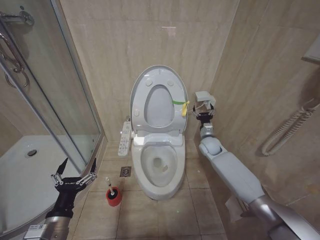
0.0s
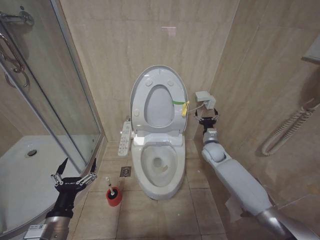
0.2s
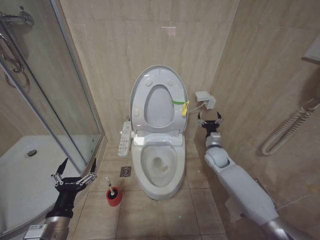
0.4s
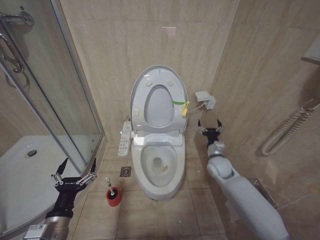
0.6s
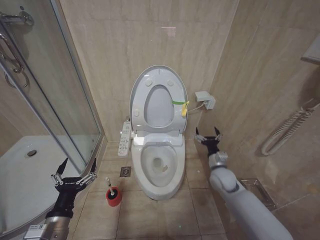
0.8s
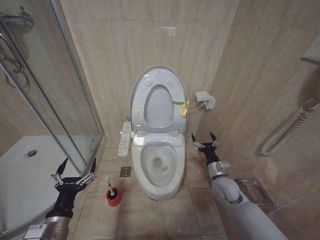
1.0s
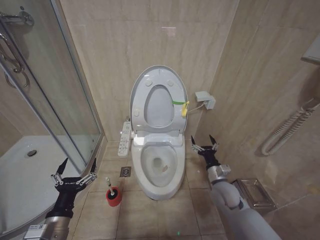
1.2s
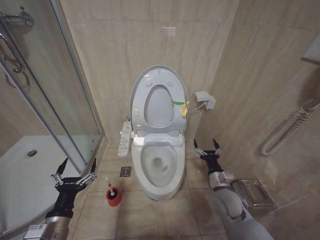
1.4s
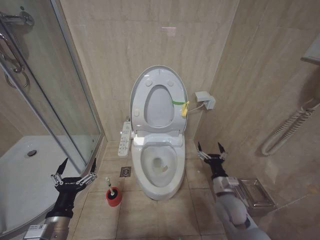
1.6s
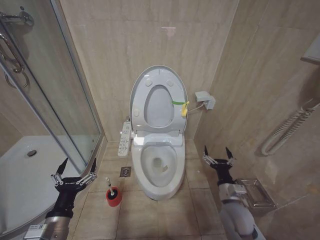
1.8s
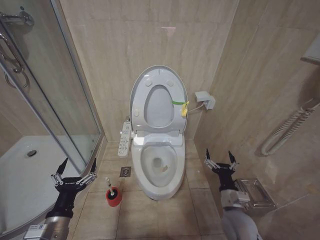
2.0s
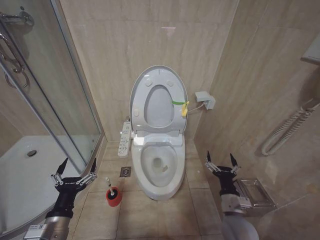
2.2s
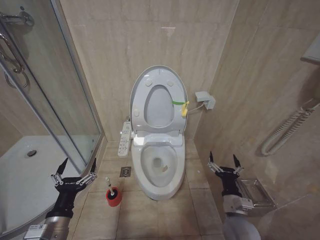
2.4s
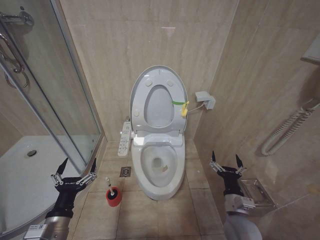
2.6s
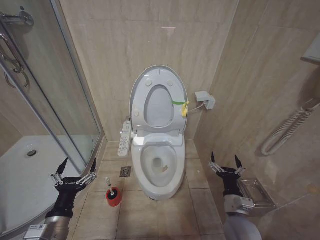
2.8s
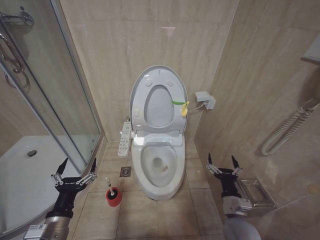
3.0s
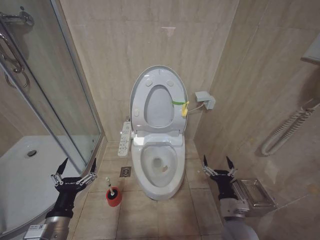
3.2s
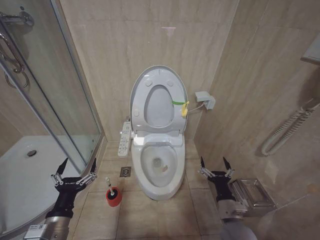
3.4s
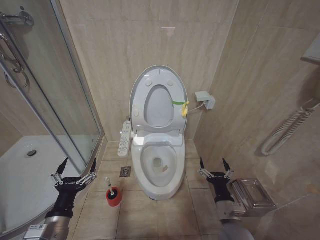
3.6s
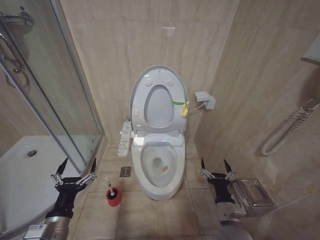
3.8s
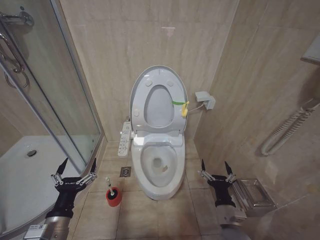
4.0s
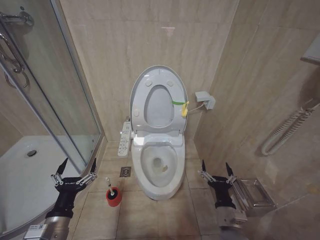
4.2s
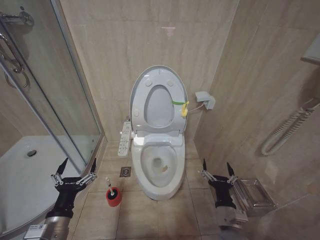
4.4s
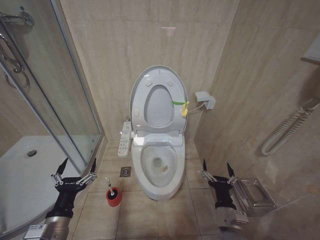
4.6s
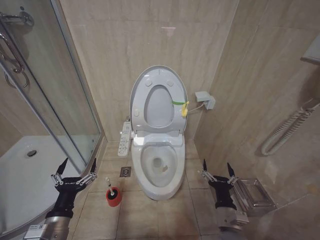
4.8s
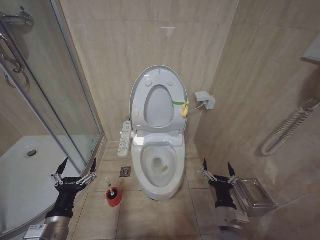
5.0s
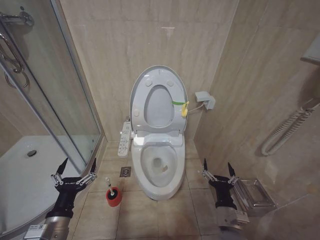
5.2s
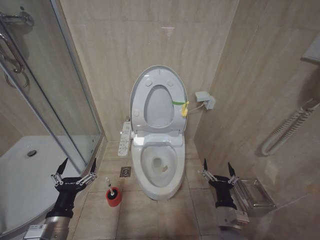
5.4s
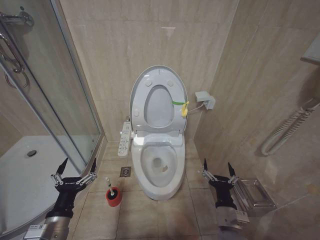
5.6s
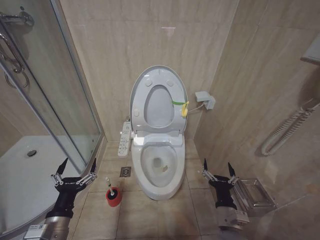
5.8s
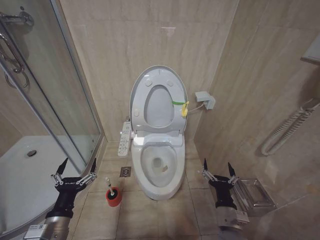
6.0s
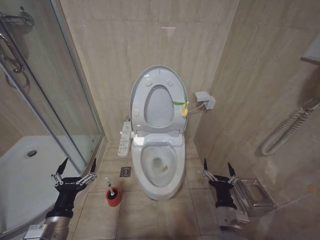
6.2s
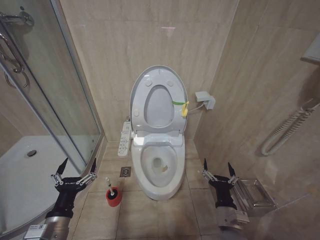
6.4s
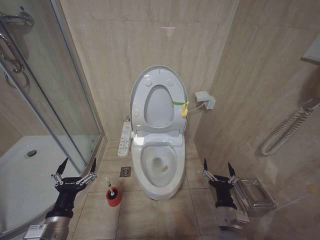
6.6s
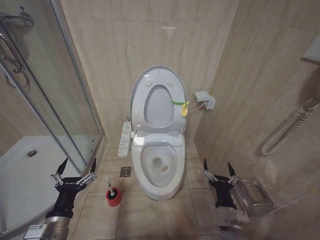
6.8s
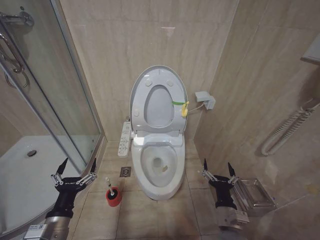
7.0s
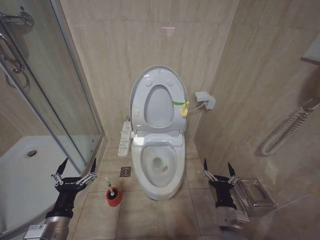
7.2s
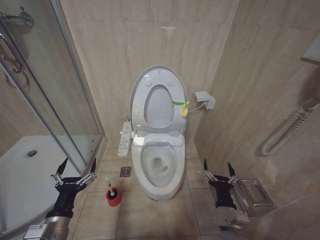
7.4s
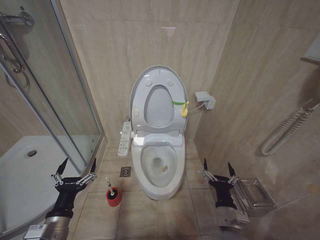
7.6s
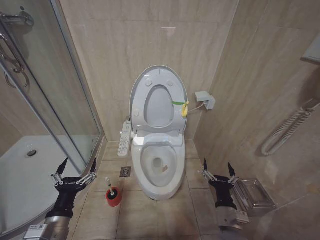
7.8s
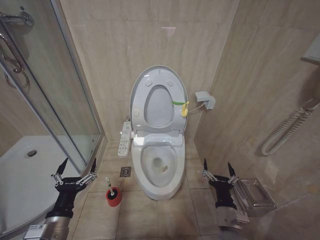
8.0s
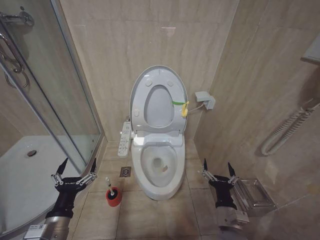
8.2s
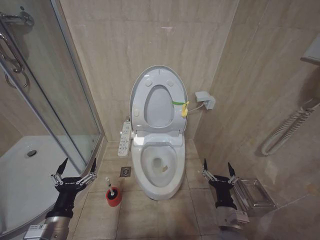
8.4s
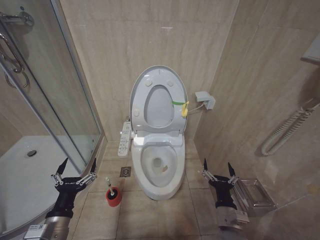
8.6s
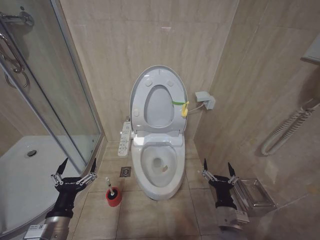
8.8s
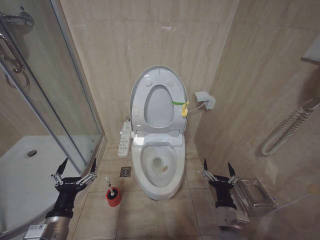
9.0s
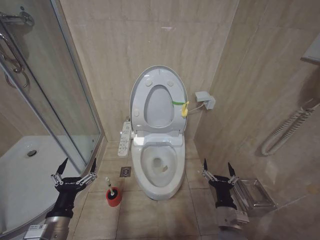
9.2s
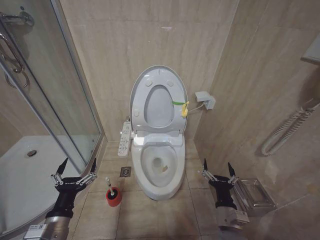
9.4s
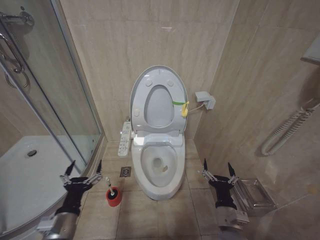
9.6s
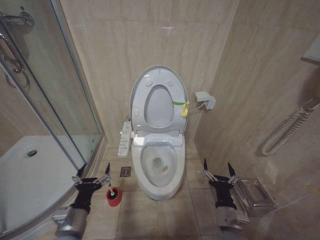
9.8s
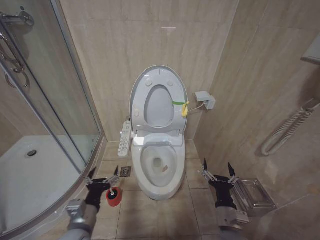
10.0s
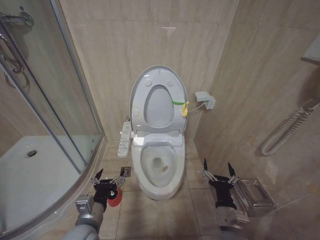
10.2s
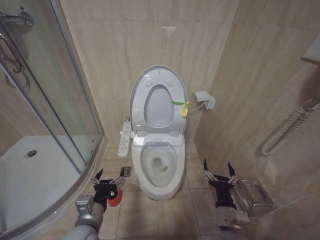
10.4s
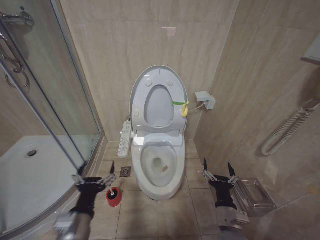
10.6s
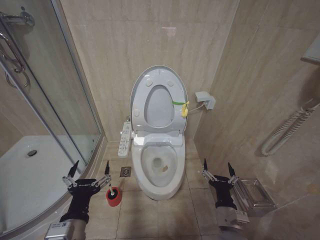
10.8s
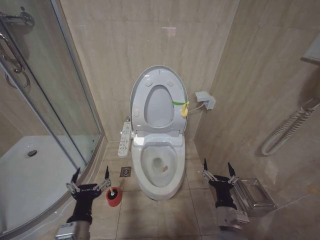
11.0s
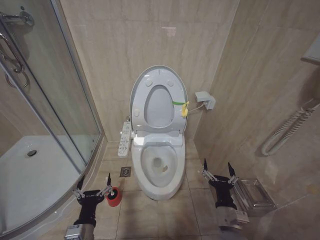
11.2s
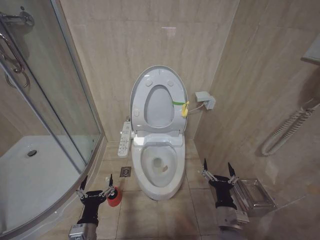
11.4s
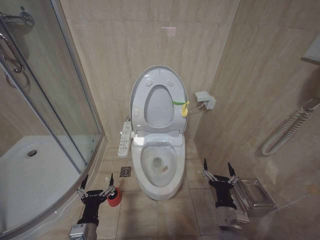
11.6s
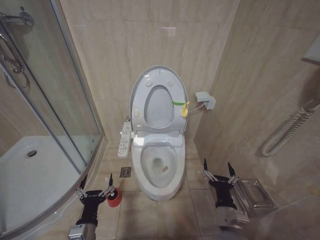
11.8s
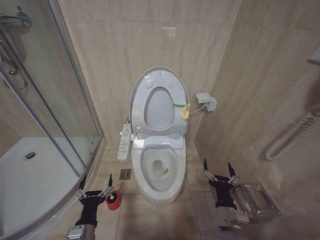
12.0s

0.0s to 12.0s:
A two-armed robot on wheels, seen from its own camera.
Task of the whole recording: Open the toilet lid, clean the toilet bowl with a toilet brush, close the toilet lid, and flush.
0.0s to 1.6s: The right gripper goes some 25 cm backward.
1.6s to 3.0s: The right gripper moves backward, about 5 cm.
3.0s to 4.4s: The right gripper changes place by some 5 cm.
4.4s to 9.0s: The two grippers keep their place.
9.0s to 10.4s: The left gripper is displaced to the right by some 5 cm.
10.4s to 12.0s: The left gripper shifts approximately 5 cm downward.

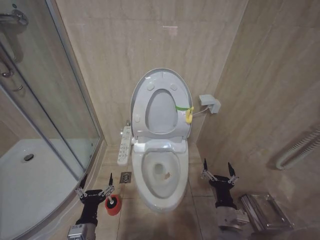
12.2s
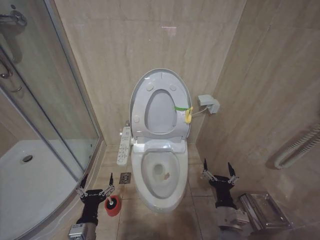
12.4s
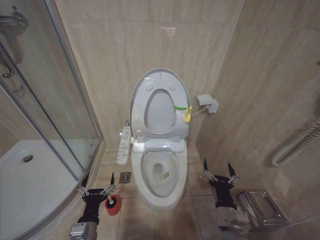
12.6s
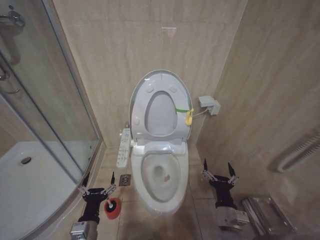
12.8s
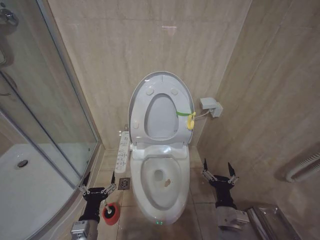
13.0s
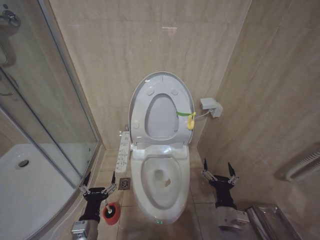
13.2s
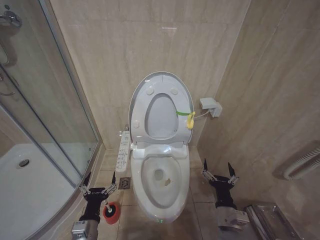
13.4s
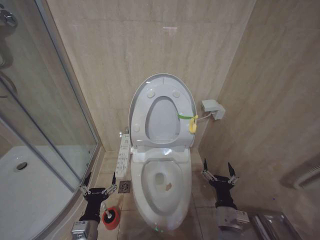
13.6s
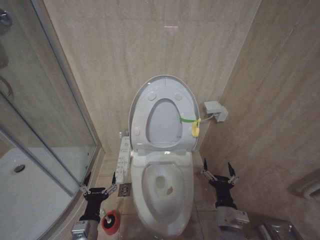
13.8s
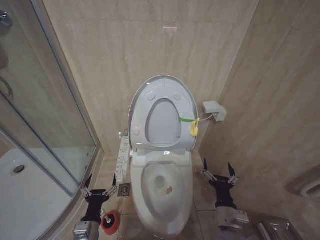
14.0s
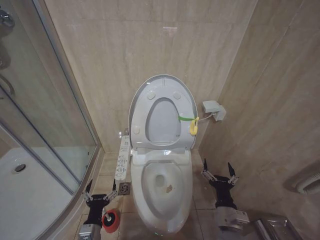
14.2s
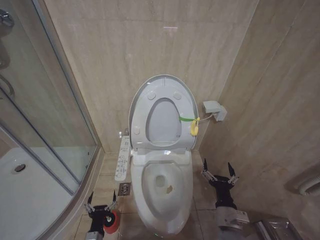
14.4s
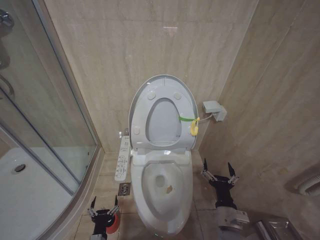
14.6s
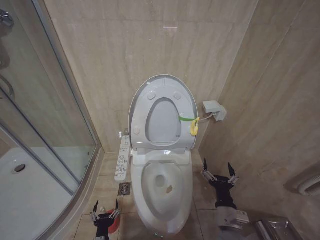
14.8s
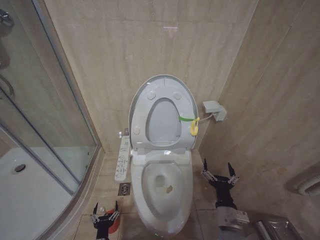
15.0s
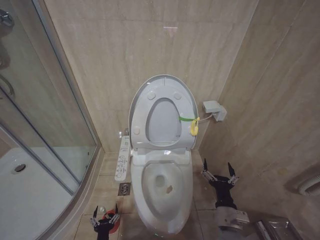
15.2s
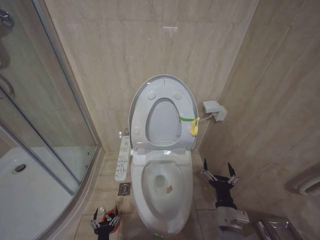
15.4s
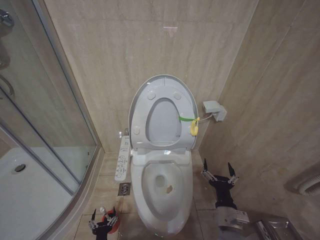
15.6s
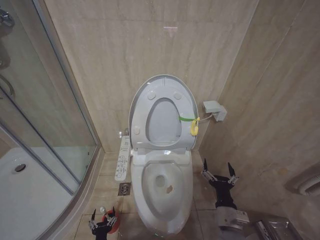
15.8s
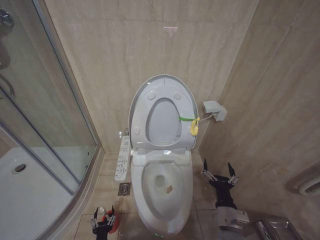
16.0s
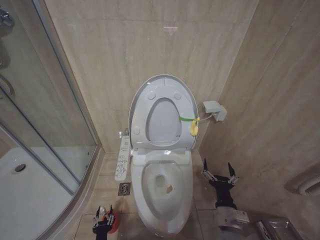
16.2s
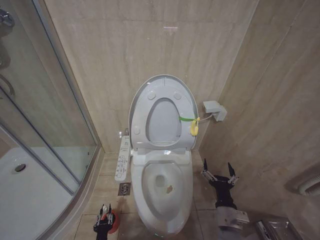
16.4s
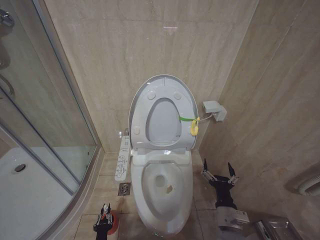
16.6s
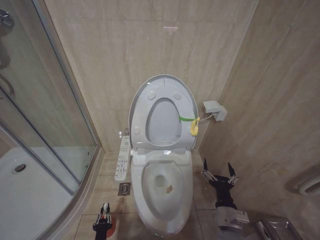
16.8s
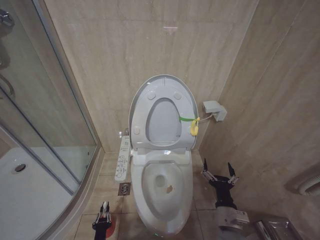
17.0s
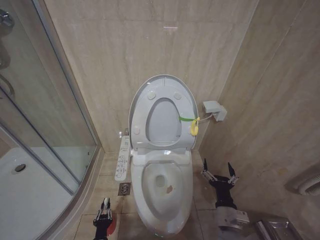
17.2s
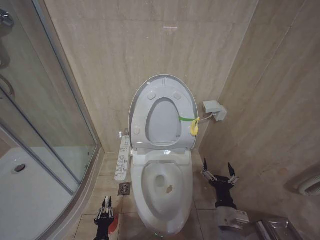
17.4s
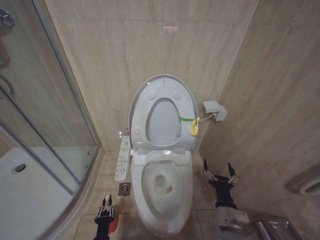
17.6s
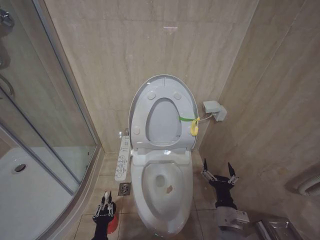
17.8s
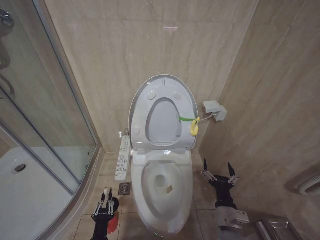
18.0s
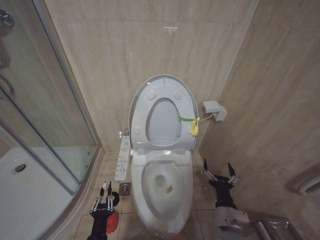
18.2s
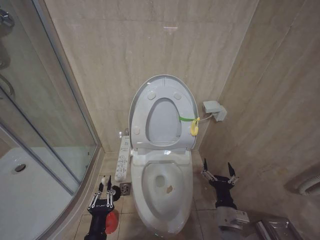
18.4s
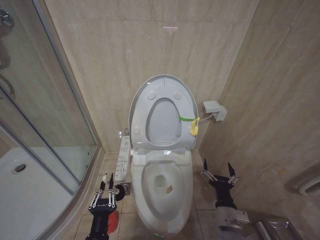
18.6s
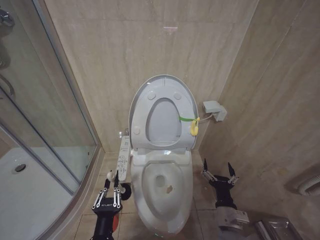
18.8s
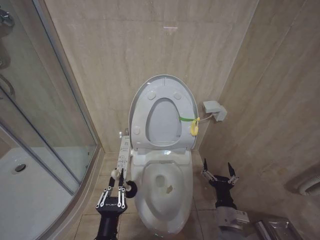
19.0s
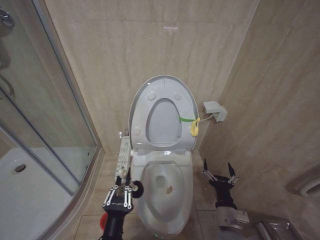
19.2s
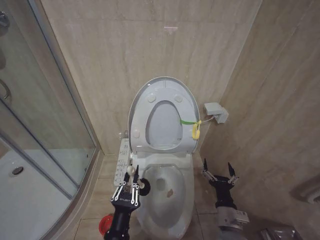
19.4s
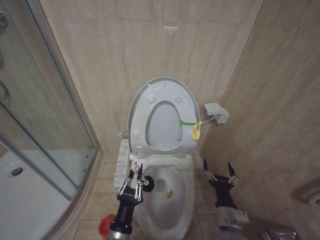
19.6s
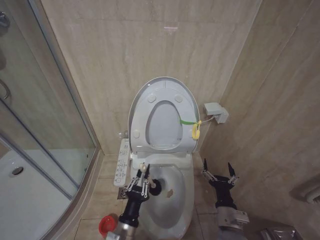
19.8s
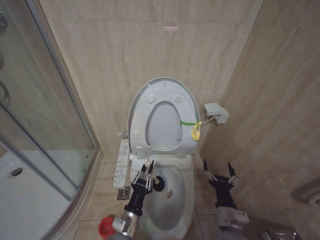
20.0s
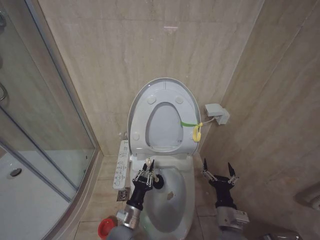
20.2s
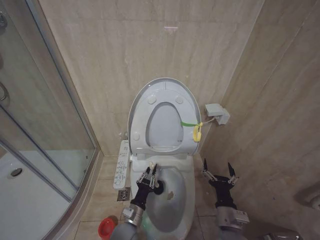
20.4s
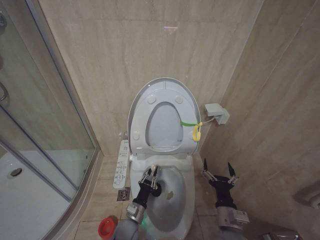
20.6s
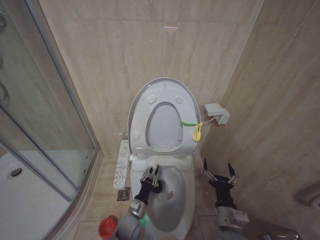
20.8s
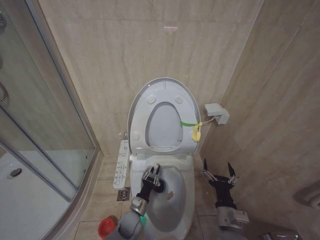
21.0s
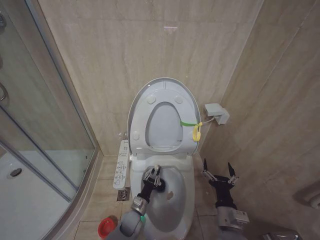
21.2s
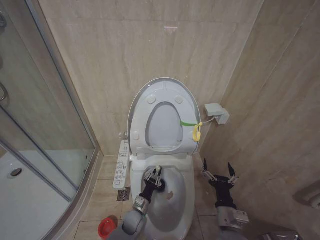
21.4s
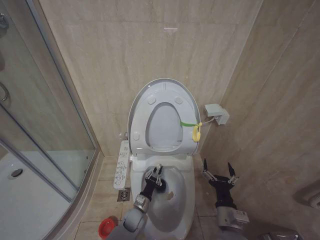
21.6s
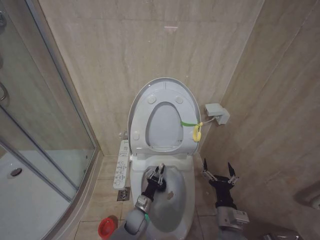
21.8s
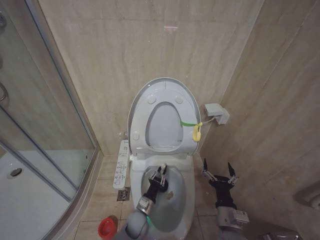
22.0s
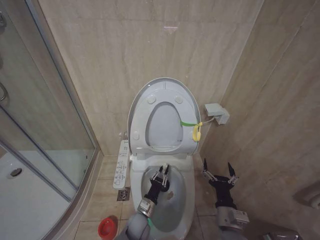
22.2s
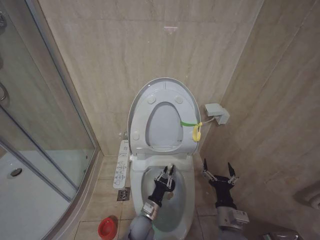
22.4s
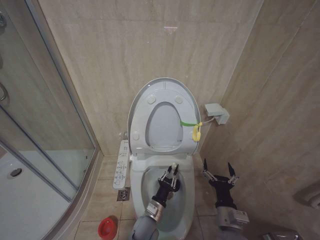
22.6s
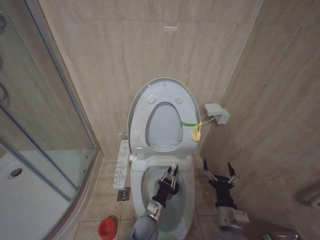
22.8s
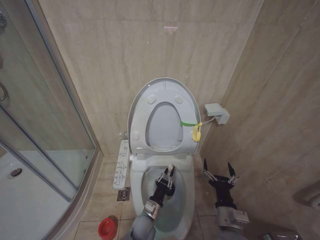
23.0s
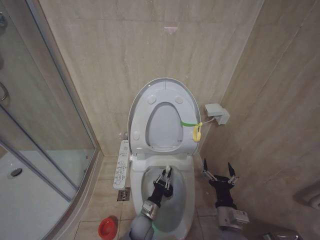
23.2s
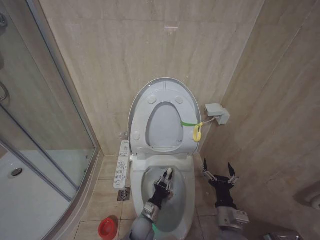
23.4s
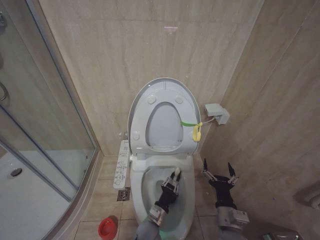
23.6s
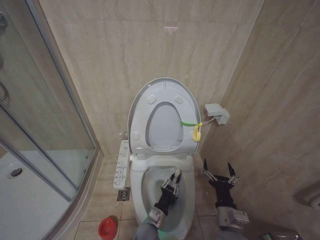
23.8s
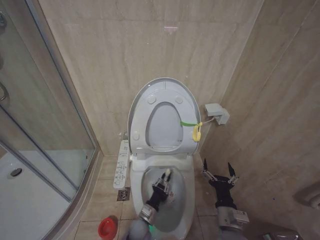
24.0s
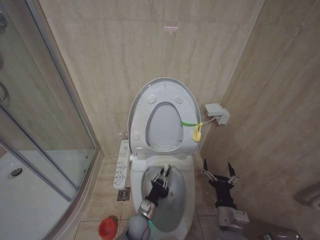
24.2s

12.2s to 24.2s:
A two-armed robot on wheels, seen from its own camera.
Task of the whole recording: Open the toilet lid, clean the toilet bowl with a toilet brush, close the toilet lid, and flush.
12.2s to 13.8s: Neither gripper changes place.
13.8s to 15.2s: The left gripper shifts some 20 cm downward.
16.6s to 18.2s: The left gripper heads upward, covering some 15 cm.
18.2s to 19.8s: The left gripper goes approximately 10 cm upward and to the right.
19.8s to 21.2s: The left gripper heads downward and forward, covering approximately 25 cm.
21.2s to 22.6s: The left gripper travels to the right and upward by about 10 cm.
22.6s to 24.2s: The left gripper shifts by about 5 cm.
